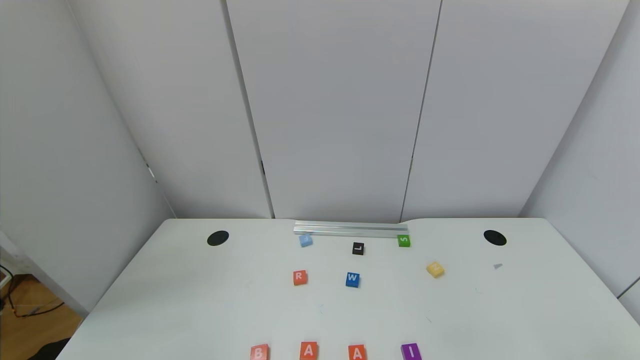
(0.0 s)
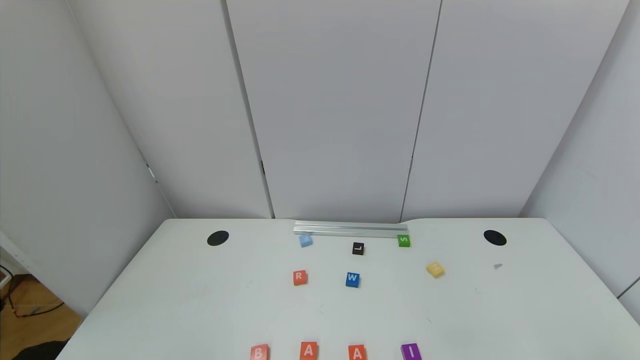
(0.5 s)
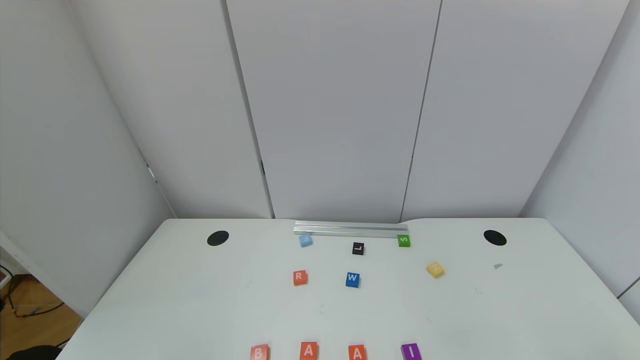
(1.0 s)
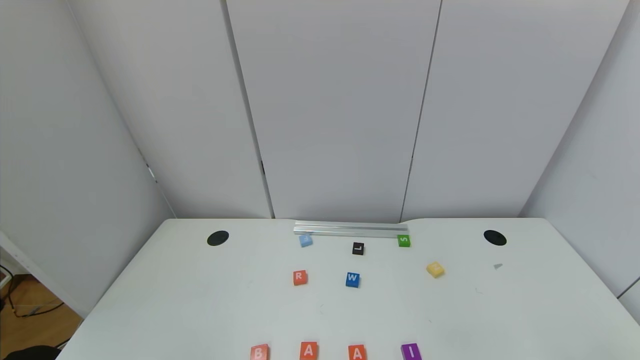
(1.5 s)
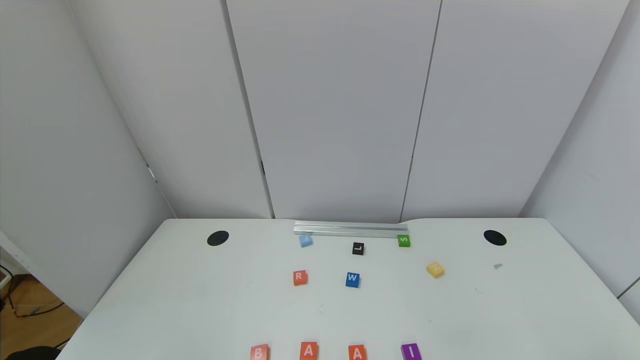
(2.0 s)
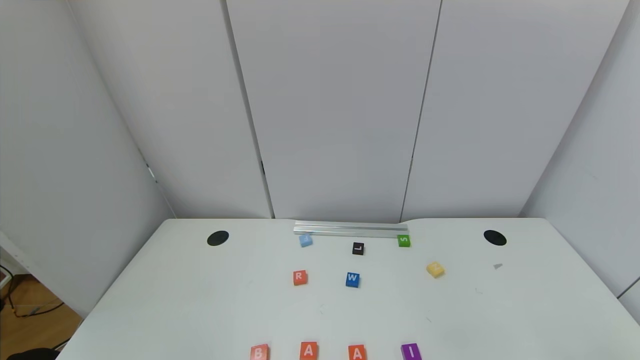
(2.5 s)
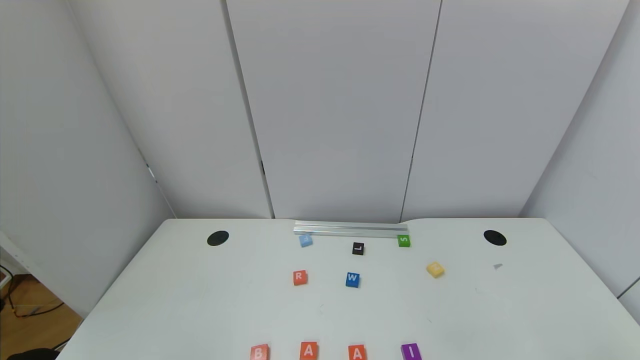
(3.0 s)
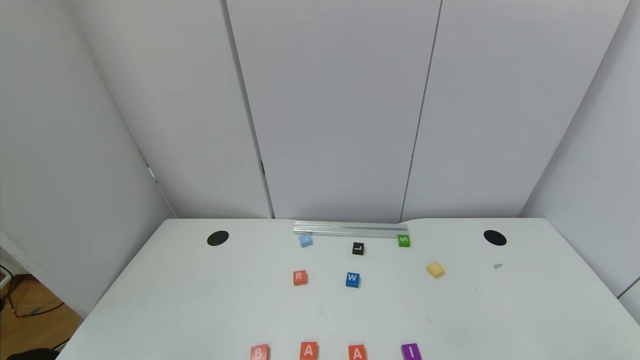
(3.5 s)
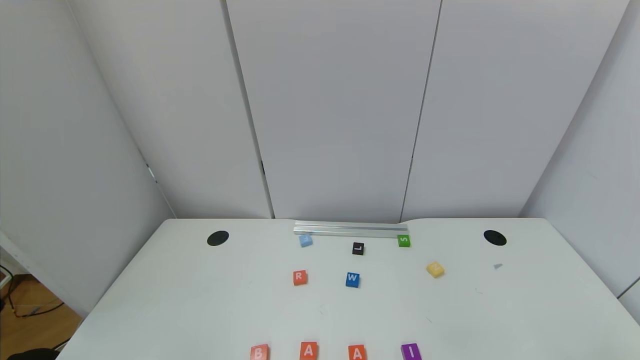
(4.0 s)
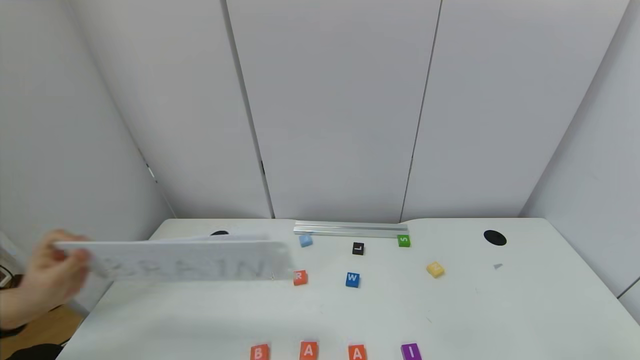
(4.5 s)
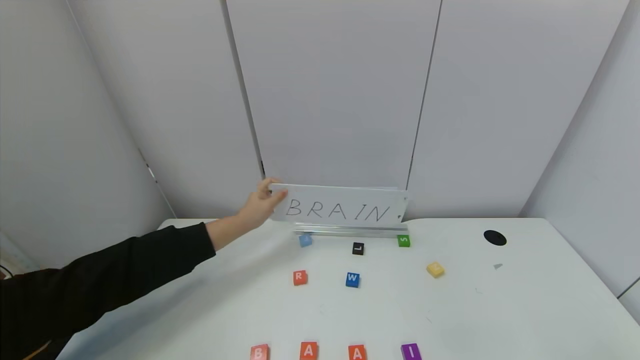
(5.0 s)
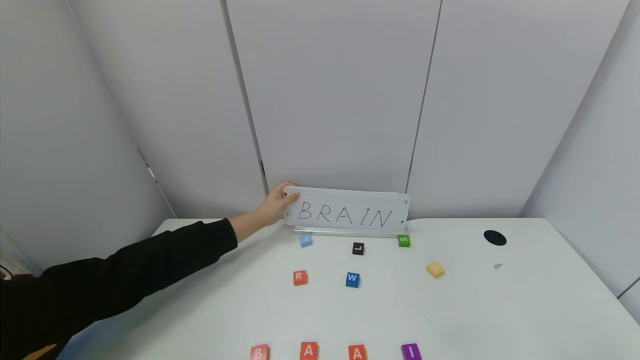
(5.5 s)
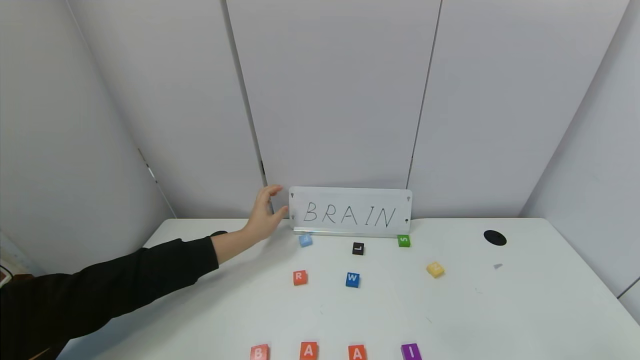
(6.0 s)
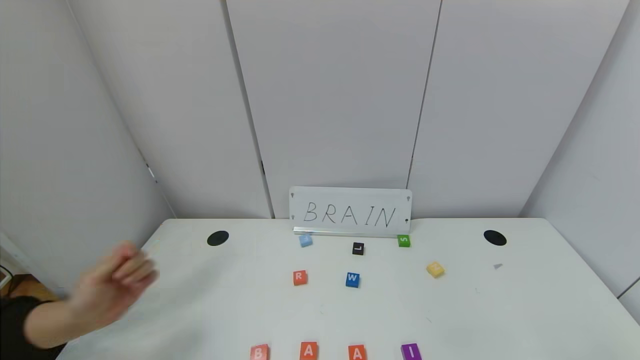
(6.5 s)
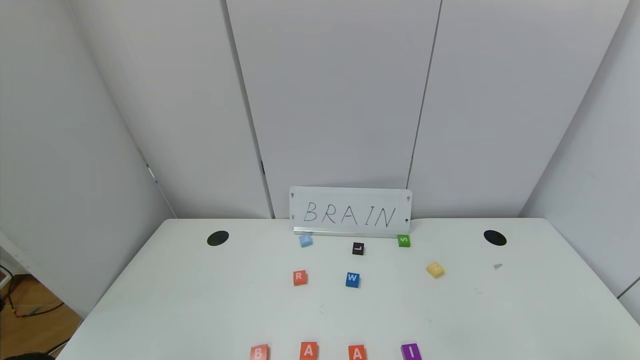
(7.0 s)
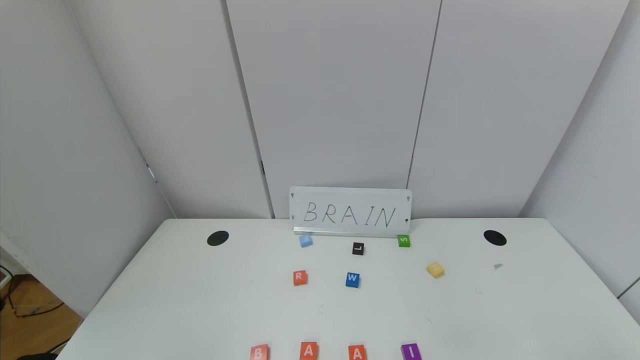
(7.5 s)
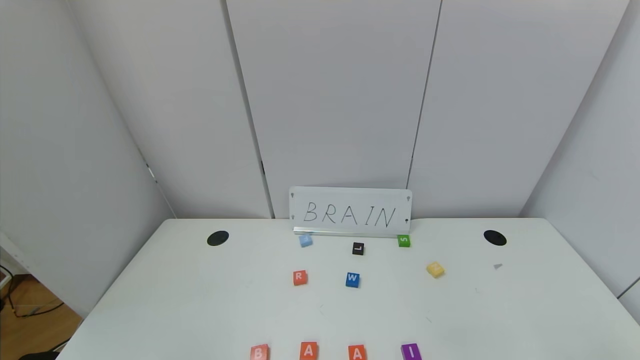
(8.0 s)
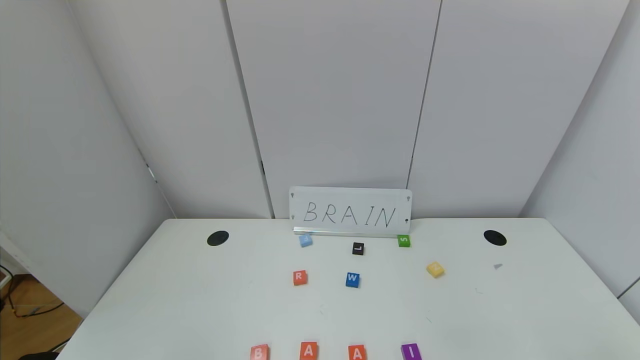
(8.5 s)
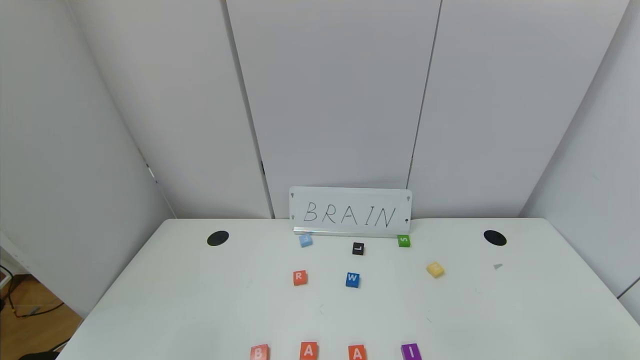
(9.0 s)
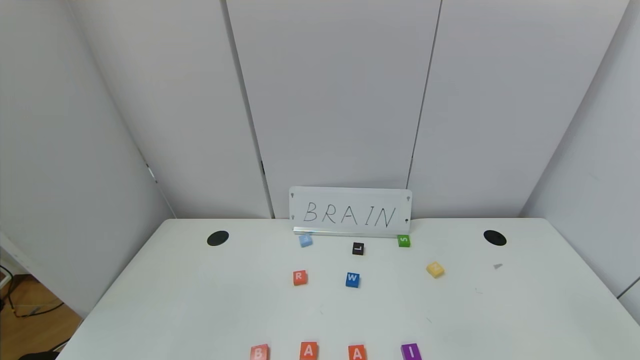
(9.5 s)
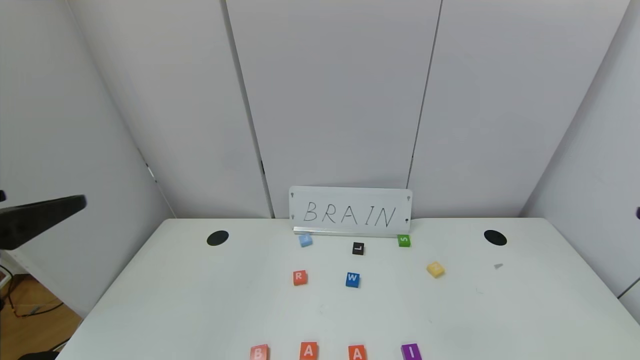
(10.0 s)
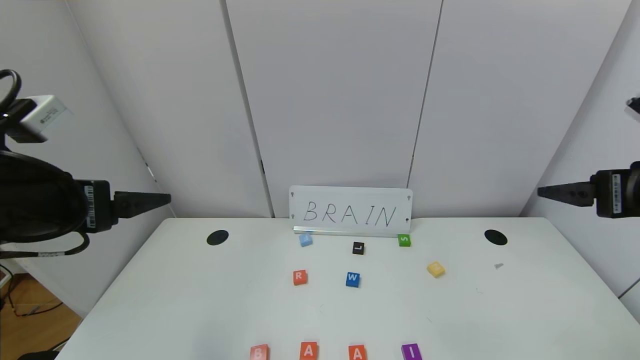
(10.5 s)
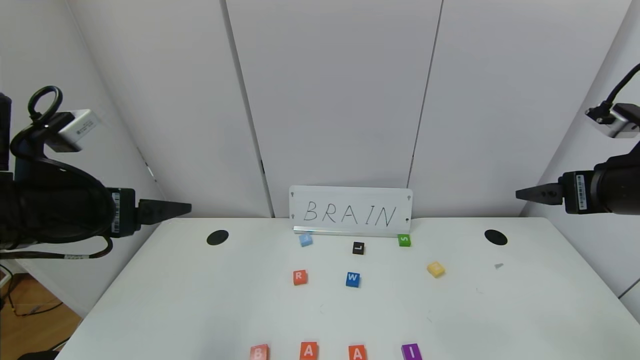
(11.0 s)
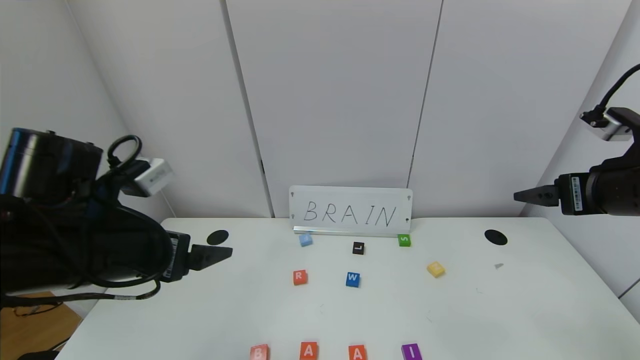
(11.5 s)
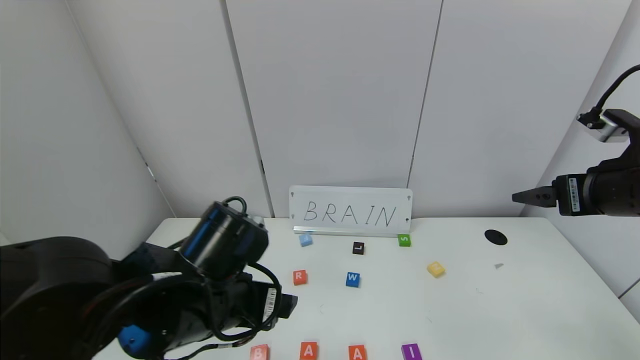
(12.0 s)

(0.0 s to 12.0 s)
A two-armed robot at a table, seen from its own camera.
Task of the whole recording: use the gripper to find blocks with the letters b, a, a, and i on the table and arrange them into BAAI, then find r and N and turn the arranged baai into brian.
0.0 s - 8.0 s: Neither gripper changes place.
8.0 s - 10.0 s: The left gripper moves upward and forward, some 25 cm.
10.0 s - 12.0 s: The left gripper goes about 25 cm to the right, downward and forward; the right gripper travels forward by some 15 cm.

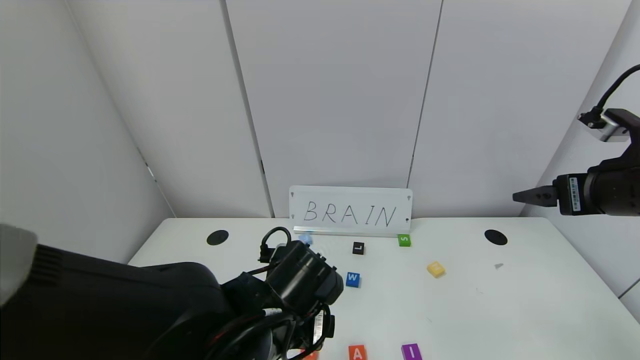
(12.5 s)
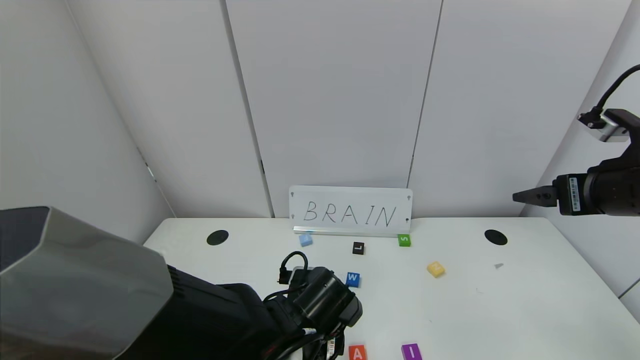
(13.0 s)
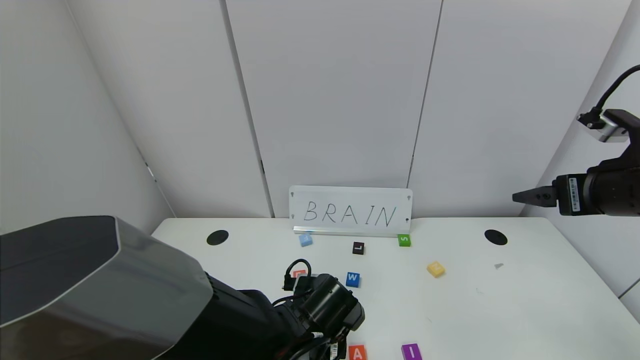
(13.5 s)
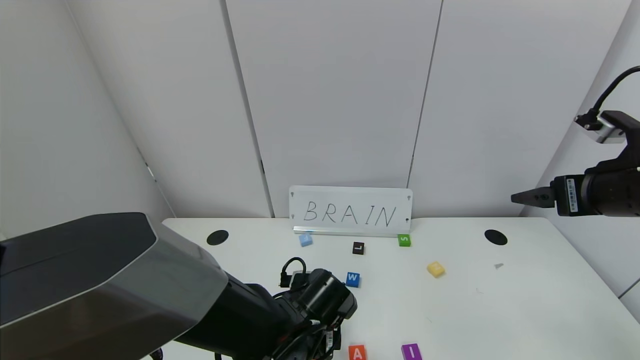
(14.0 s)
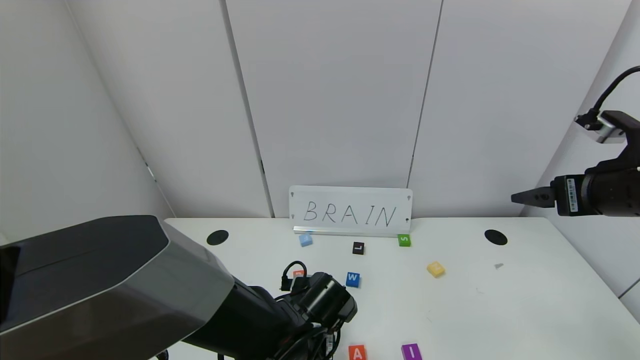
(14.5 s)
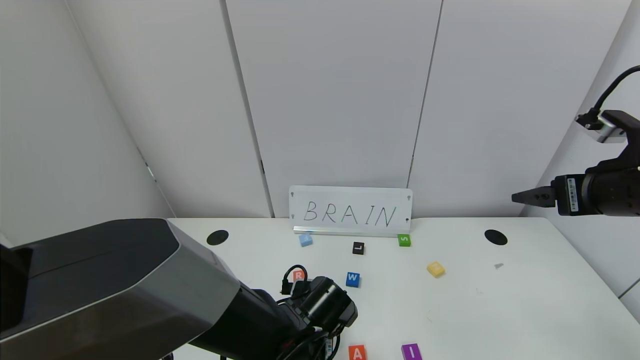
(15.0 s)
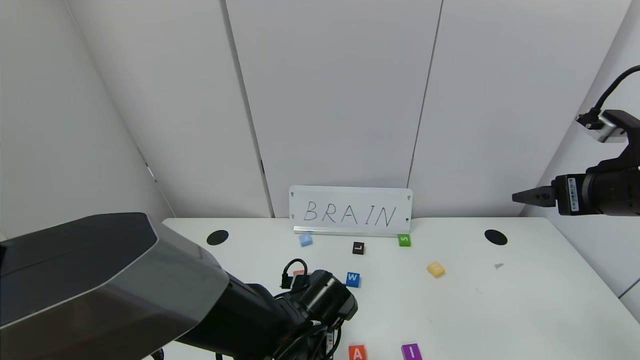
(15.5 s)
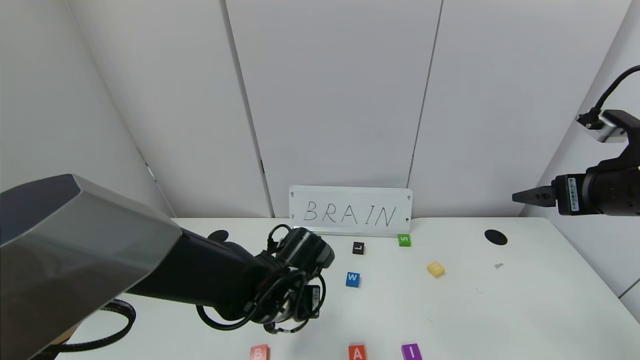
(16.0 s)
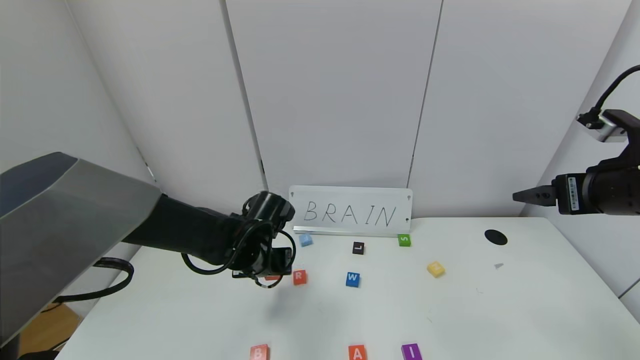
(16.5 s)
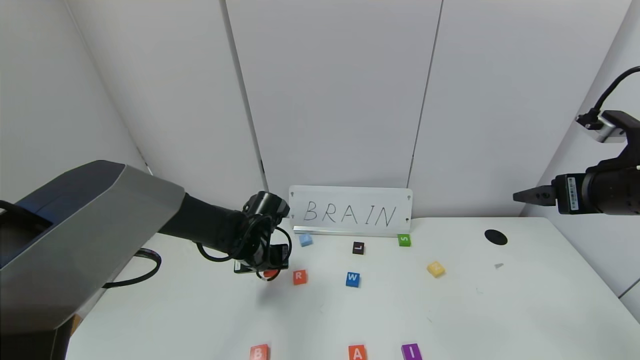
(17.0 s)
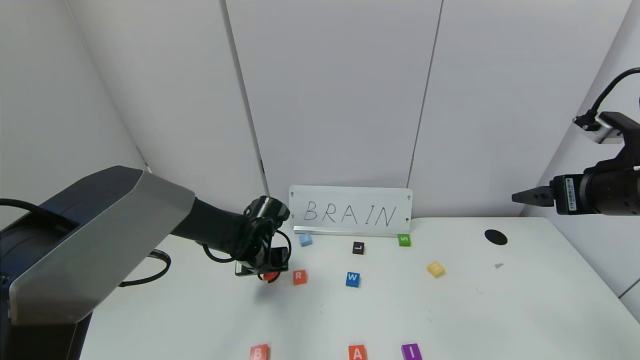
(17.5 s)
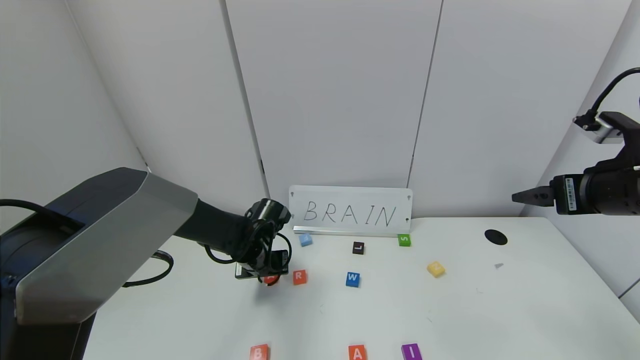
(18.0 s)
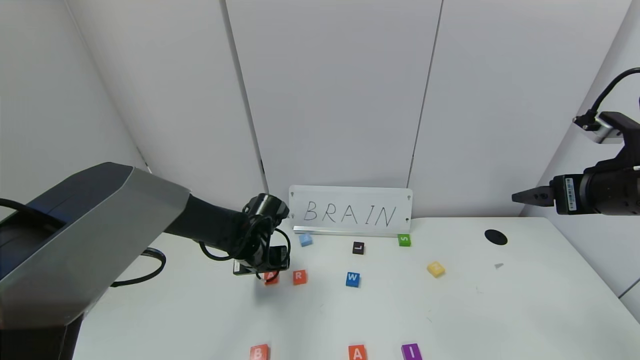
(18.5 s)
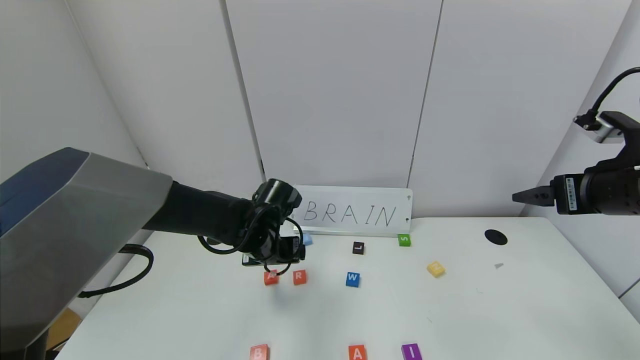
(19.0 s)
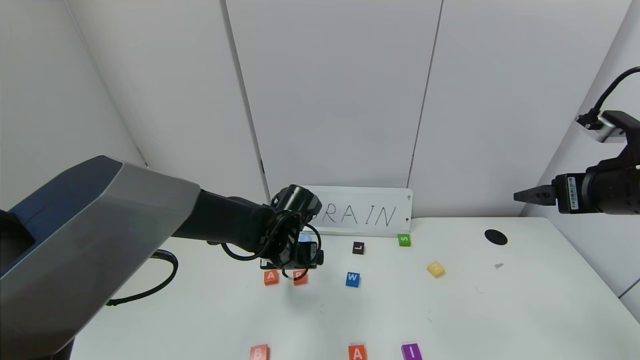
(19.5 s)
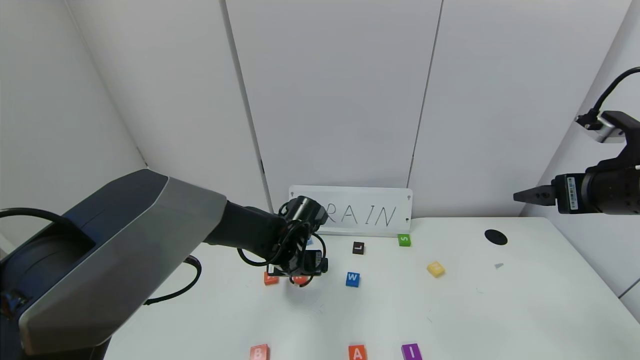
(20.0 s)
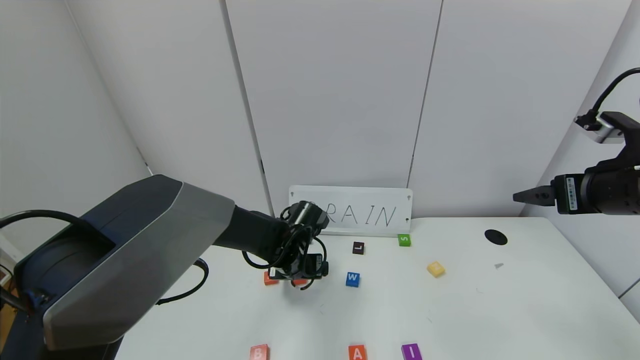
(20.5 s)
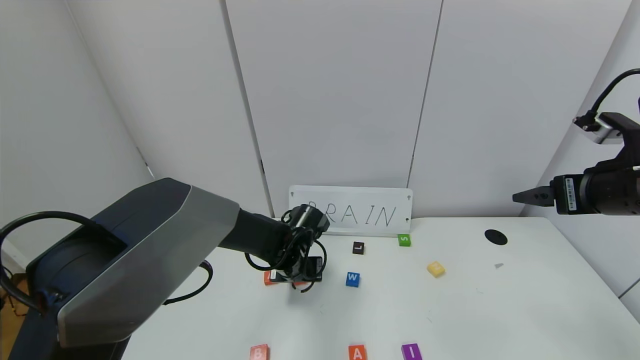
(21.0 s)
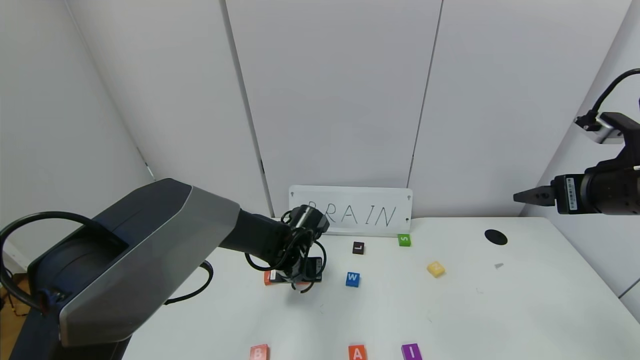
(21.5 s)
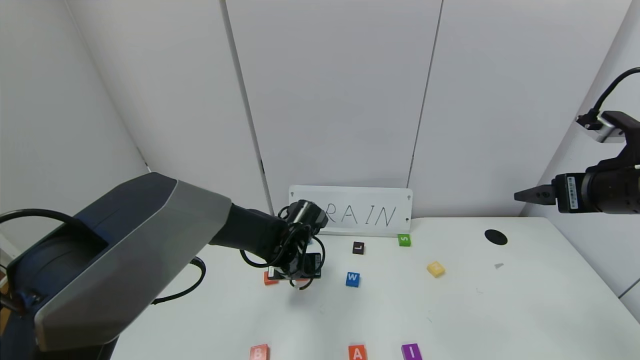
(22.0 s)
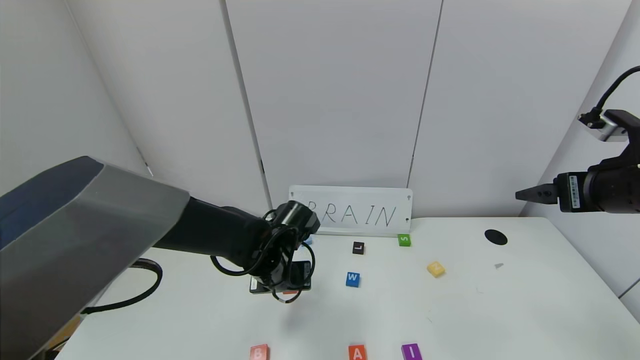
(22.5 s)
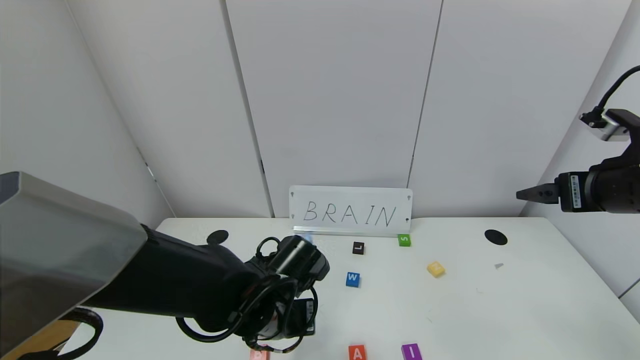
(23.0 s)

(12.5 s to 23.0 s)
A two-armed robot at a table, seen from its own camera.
Task of the whole recording: use the gripper to find blocks with the letters b, a, a, and i on the table and arrange them into BAAI, then find r and N and turn the arranged baai into brian.
Step, 12.5 s - 18.0 s: Move the block A out of the second location.
12.5 s - 14.5 s: The left gripper moves downward, roughly 10 cm.
14.5 s - 16.5 s: The left gripper heads forward, to the left and upward, covering roughly 15 cm, and closes.
16.5 s - 19.0 s: The left gripper opens its fingers.
19.0 s - 21.0 s: The left gripper is displaced downward by roughly 5 cm, and closes its fingers.
21.0 s - 23.0 s: The left gripper goes about 15 cm backward, and closes.
